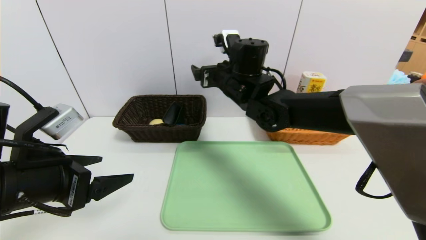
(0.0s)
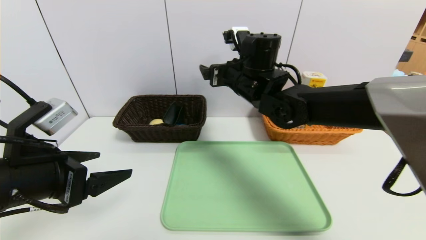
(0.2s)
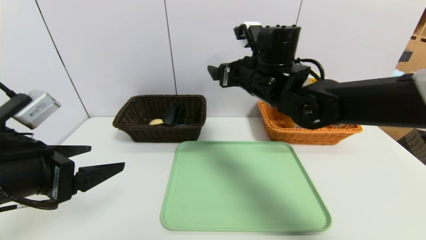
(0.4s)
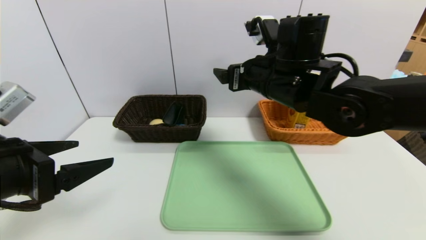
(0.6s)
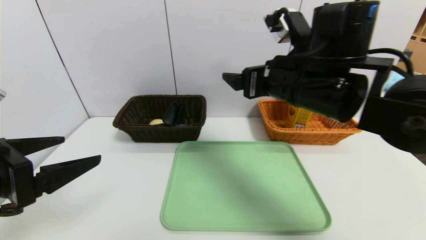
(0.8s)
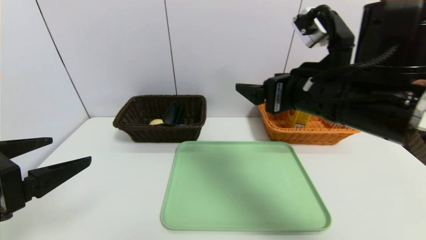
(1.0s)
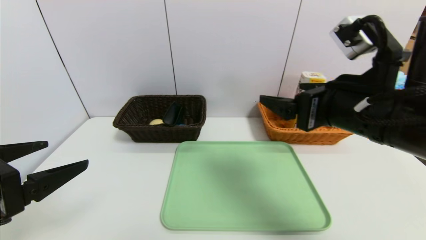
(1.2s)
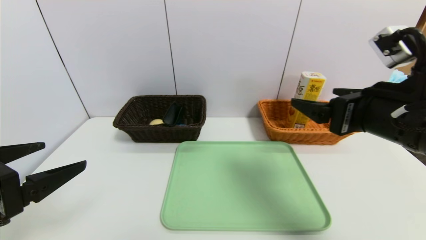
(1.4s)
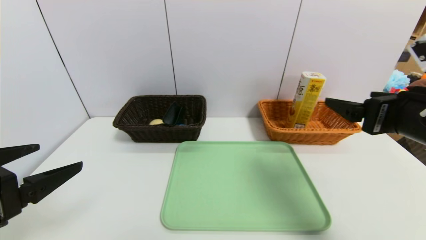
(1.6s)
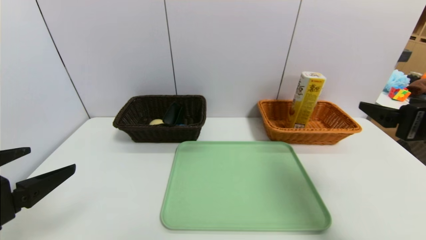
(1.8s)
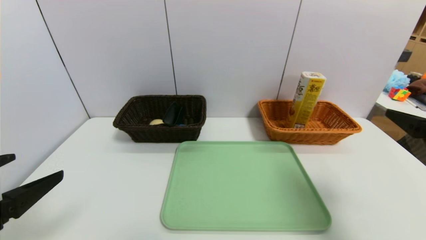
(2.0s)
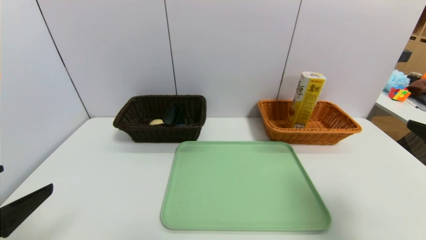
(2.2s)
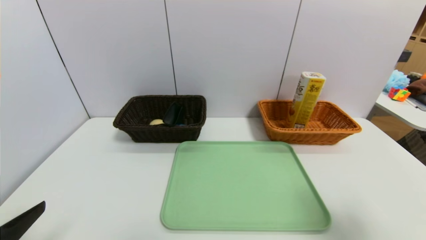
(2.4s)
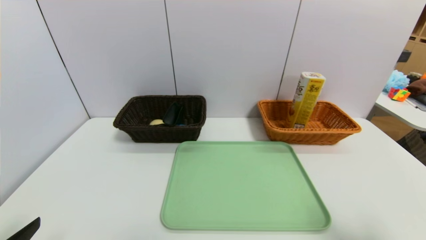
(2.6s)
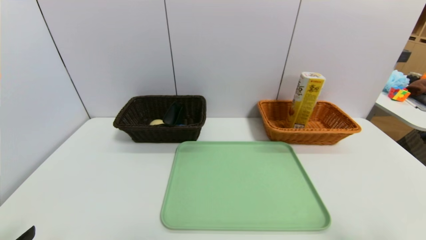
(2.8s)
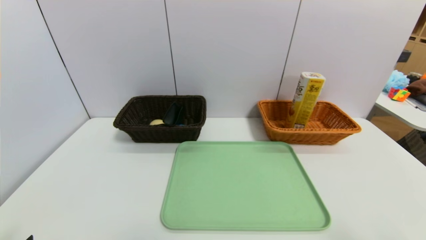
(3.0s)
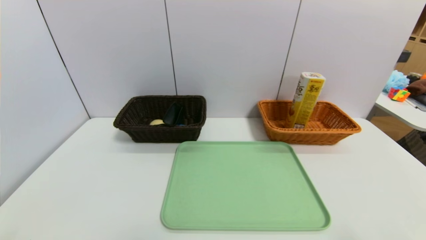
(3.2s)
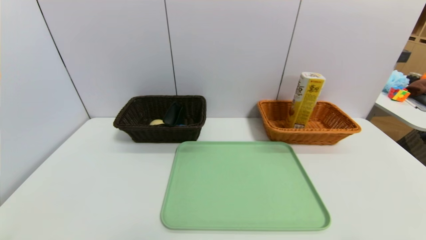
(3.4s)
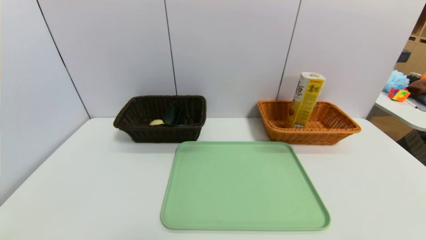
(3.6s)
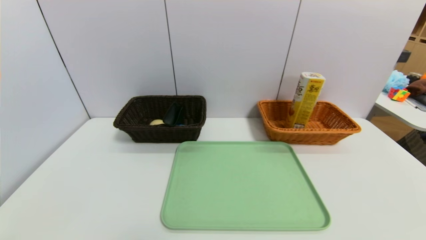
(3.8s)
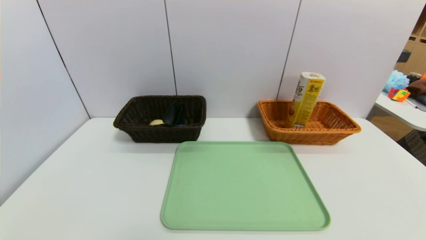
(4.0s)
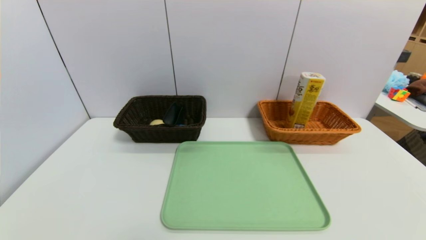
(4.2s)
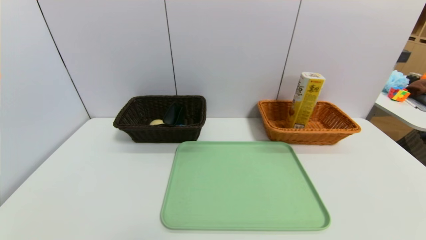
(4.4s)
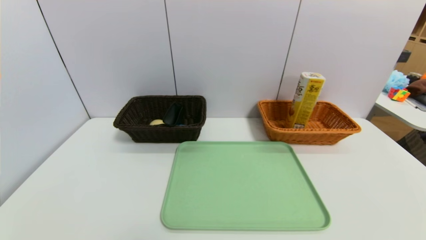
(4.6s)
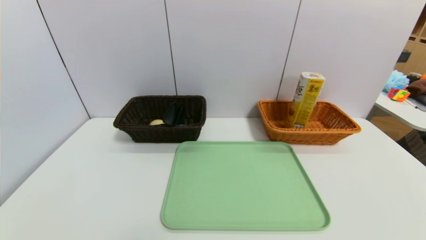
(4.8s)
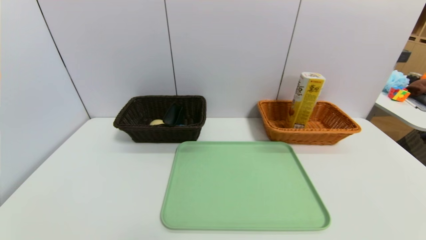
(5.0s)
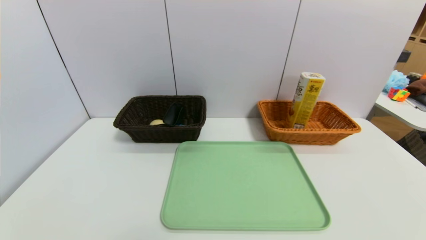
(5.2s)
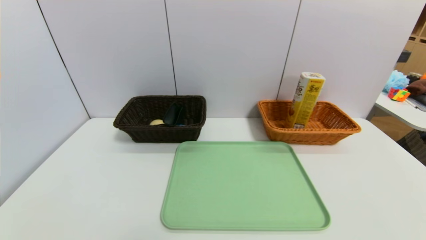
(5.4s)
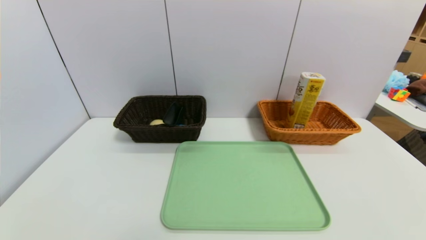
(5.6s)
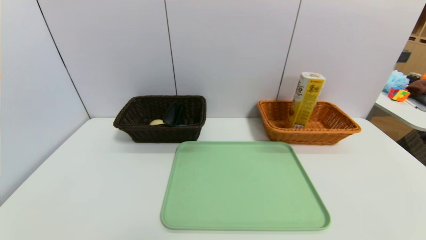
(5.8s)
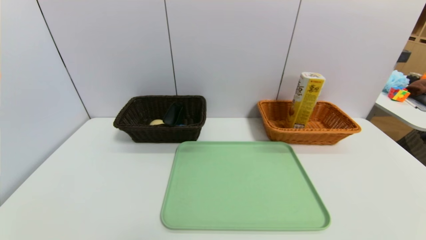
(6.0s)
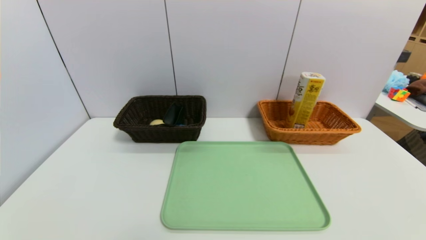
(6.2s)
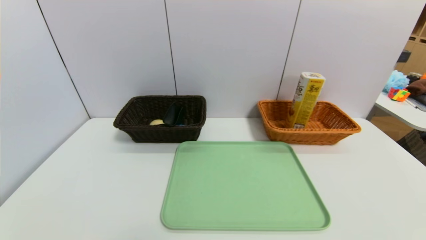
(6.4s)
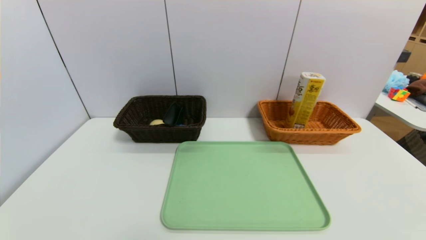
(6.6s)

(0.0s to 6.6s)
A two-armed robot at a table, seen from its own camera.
Task of the whole recording: place the food in the right basket with the right gripper, and place the non food items in the left basket with the left gripper.
0.0s - 1.6s: The left gripper shifts approximately 5 cm backward. Meanwhile the right gripper travels to the right and backward by approximately 30 cm.
1.6s - 3.2s: The left gripper heads downward and backward, covering approximately 15 cm. Meanwhile the right gripper is displaced backward and to the right by roughly 20 cm.
